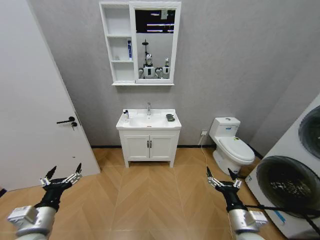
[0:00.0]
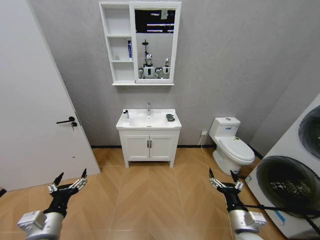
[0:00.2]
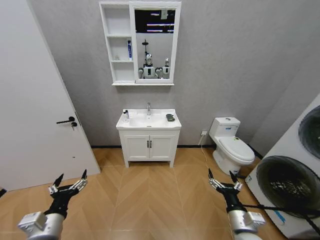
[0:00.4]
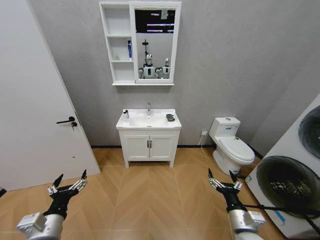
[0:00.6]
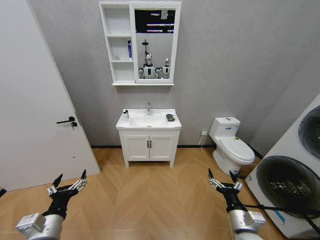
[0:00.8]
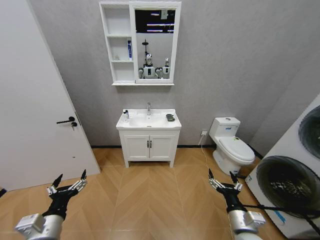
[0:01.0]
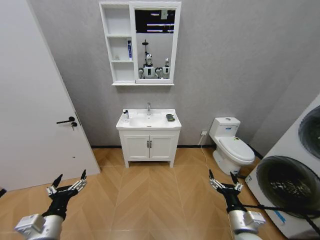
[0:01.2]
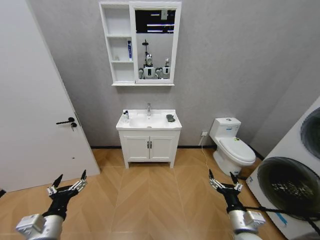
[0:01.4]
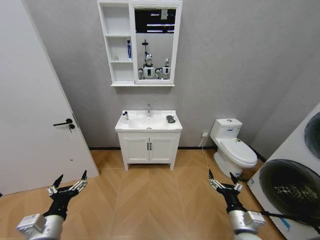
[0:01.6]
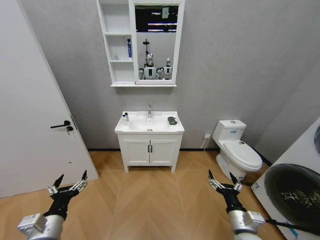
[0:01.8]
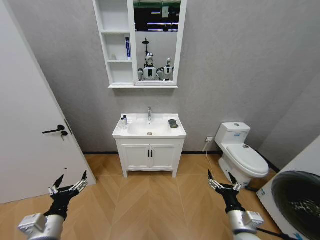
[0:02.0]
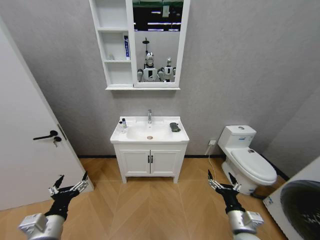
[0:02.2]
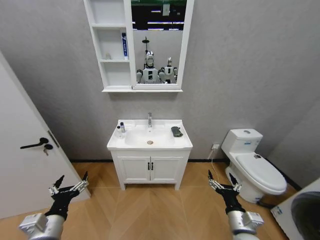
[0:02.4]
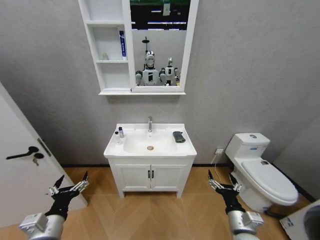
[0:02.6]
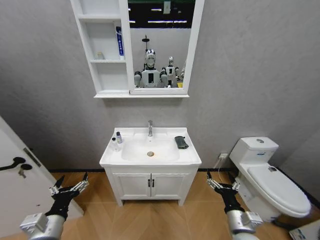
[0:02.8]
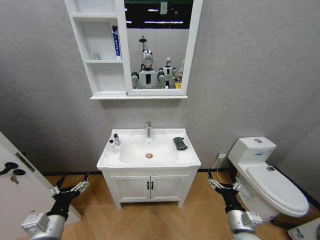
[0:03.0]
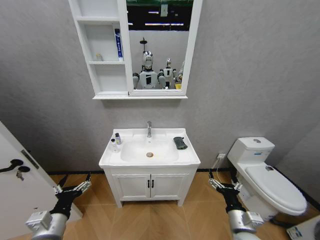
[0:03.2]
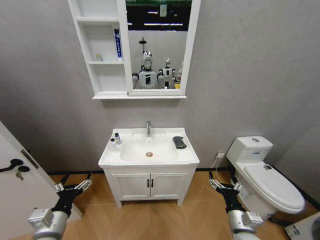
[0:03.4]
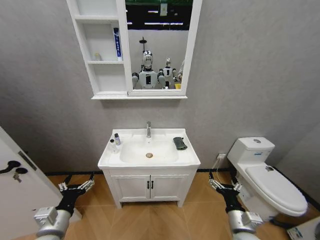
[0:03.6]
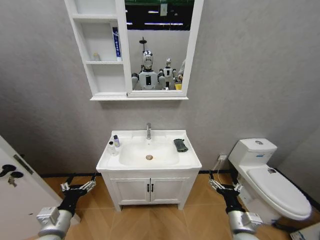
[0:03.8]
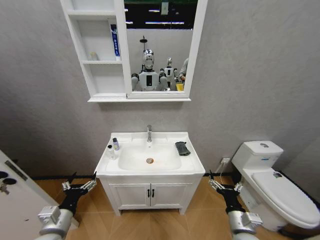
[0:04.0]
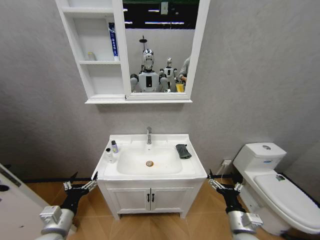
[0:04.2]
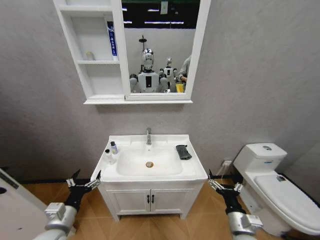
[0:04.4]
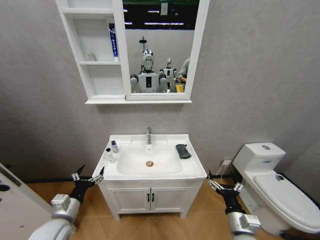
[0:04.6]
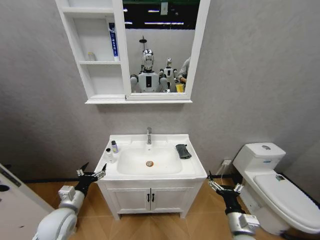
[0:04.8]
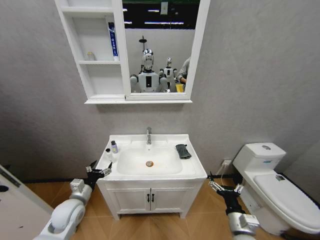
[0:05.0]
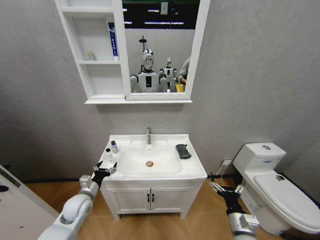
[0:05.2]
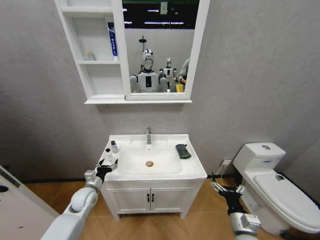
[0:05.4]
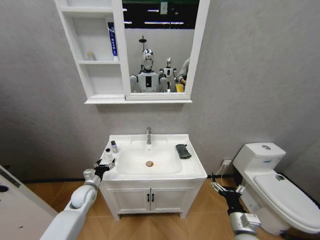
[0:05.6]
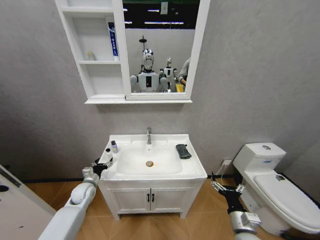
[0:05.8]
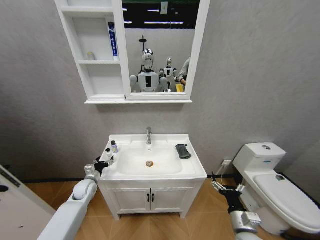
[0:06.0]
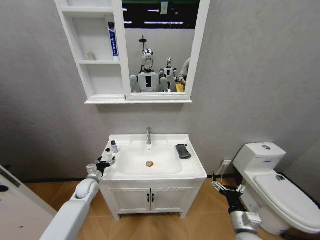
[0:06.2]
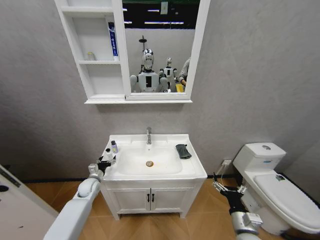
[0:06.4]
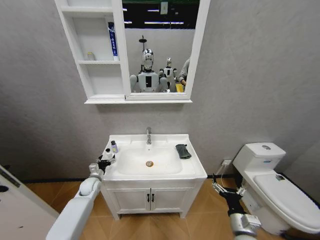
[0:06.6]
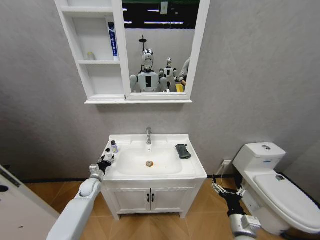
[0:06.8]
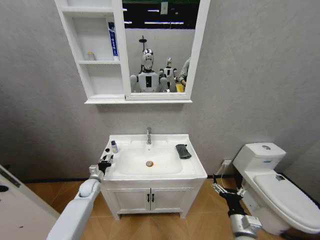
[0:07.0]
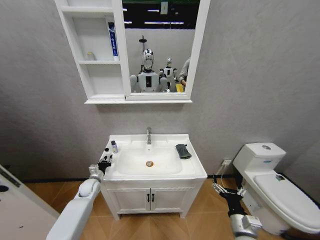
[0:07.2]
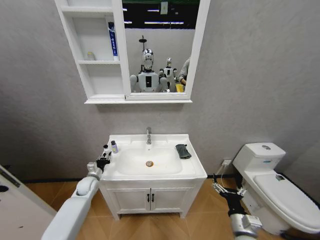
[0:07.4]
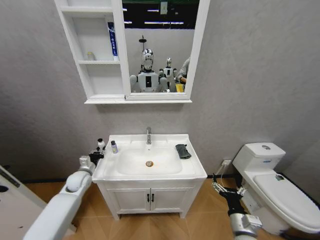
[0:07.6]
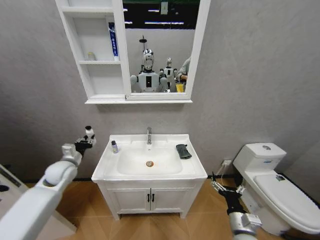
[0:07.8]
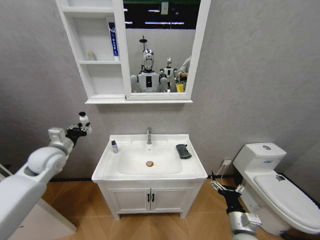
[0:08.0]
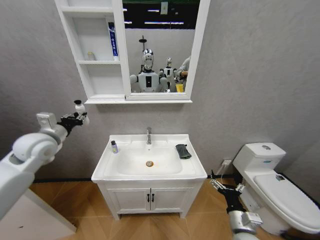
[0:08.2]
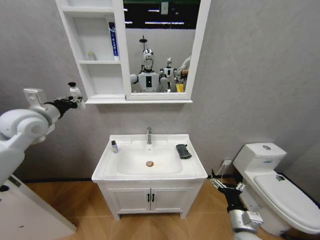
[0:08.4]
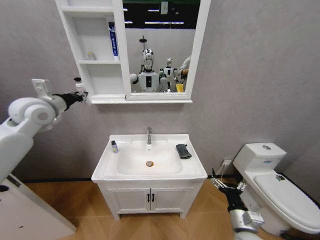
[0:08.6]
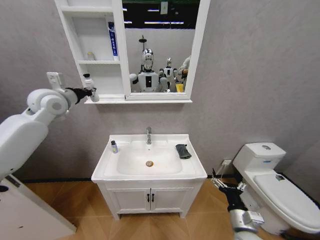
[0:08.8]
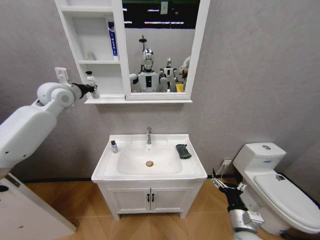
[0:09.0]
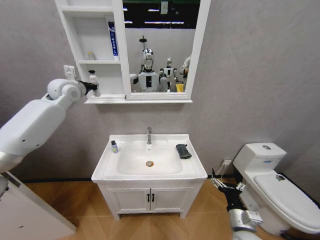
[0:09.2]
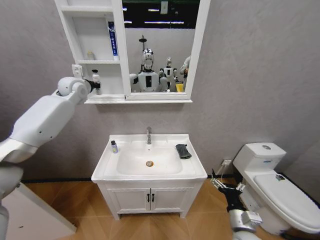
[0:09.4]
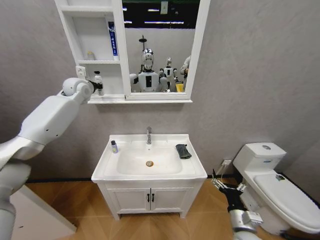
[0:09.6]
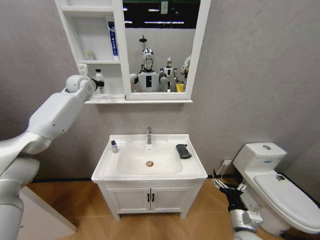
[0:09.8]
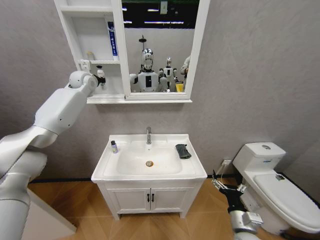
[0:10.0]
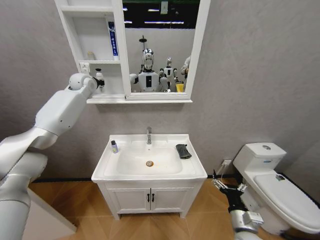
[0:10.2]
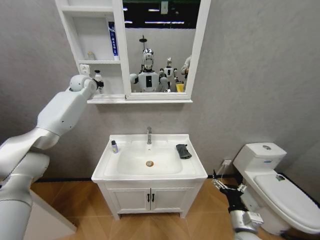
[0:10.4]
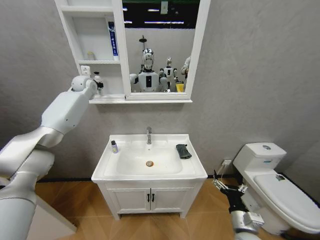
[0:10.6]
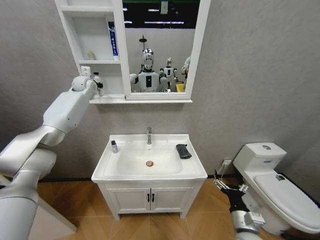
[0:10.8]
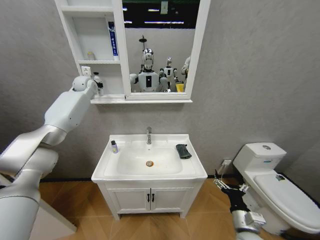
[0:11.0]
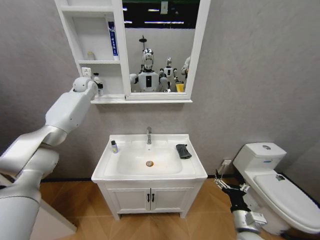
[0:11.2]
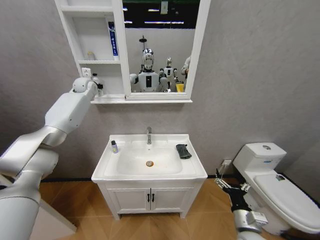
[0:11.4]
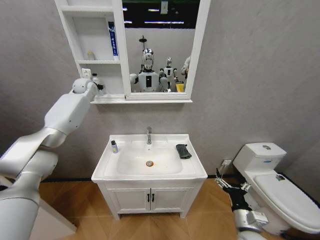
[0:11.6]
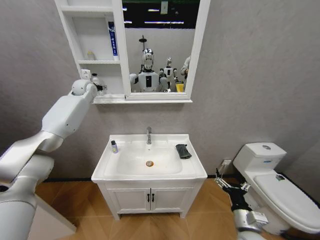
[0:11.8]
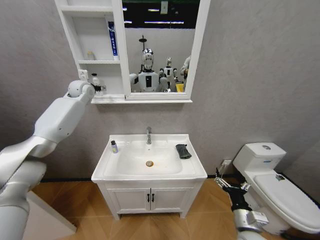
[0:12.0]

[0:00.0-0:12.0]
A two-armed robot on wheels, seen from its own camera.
Task of the whole recording: Move facial cleanser and shampoo from washbasin to cabinet, then wipe washbasin with towel.
0:04.4 to 0:06.0: The left gripper heads forward and downward, covering some 25 cm.
0:06.0 to 0:07.6: The left gripper shifts approximately 5 cm upward, and closes up.
0:07.6 to 0:09.0: The left gripper is displaced upward by roughly 35 cm.
0:09.0 to 0:10.4: The left gripper heads forward, covering about 15 cm.
0:10.4 to 0:12.0: The left gripper opens its fingers.

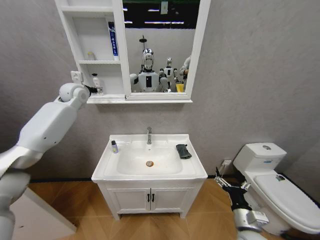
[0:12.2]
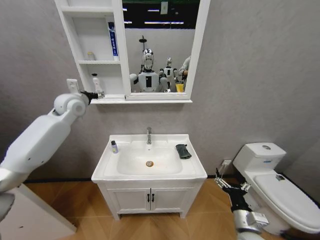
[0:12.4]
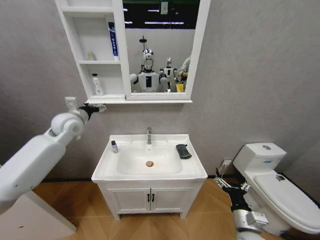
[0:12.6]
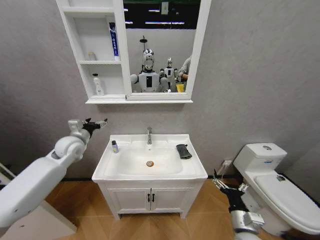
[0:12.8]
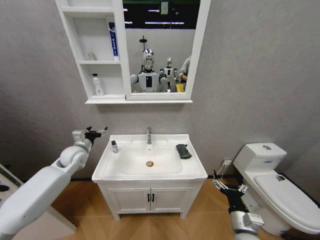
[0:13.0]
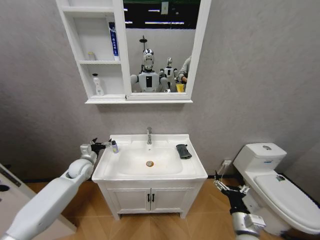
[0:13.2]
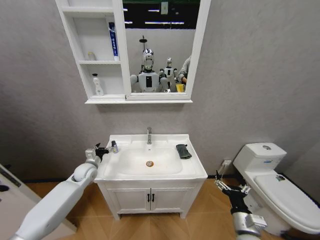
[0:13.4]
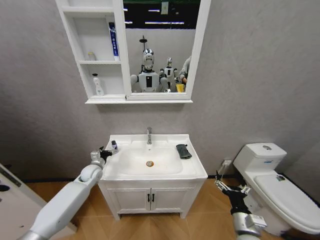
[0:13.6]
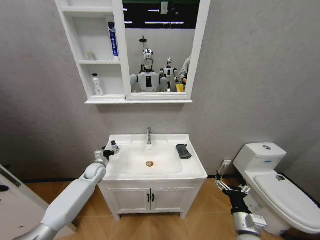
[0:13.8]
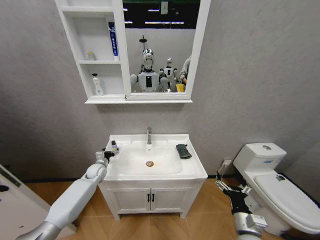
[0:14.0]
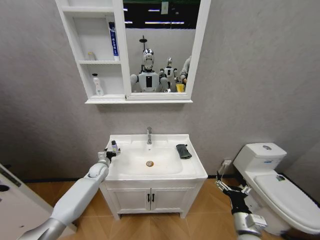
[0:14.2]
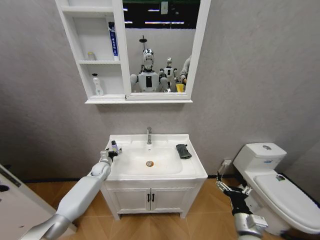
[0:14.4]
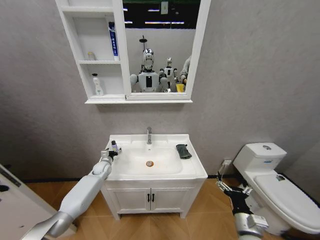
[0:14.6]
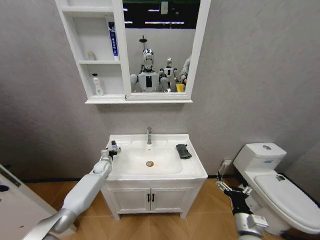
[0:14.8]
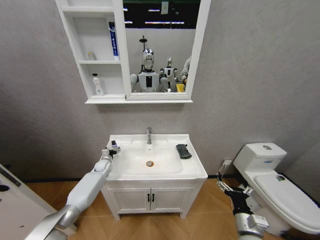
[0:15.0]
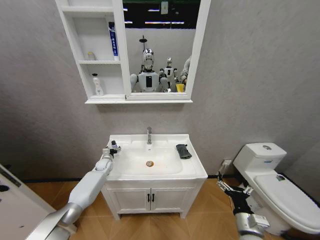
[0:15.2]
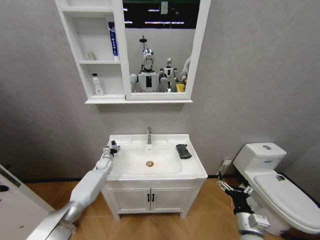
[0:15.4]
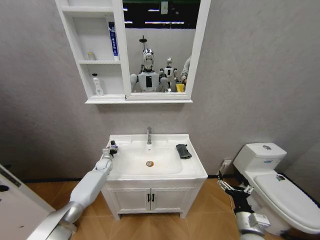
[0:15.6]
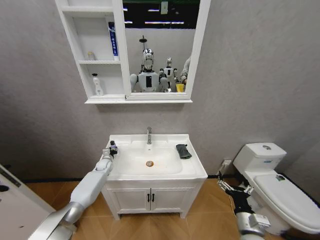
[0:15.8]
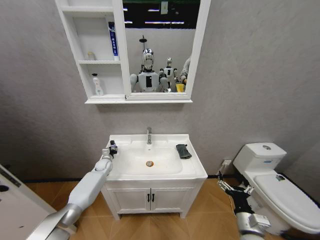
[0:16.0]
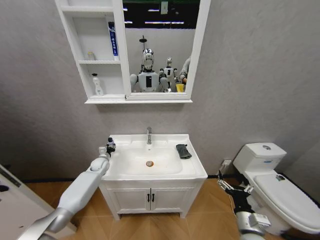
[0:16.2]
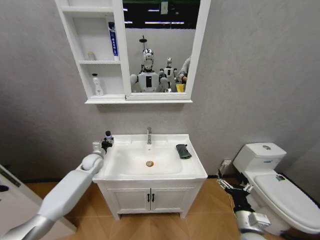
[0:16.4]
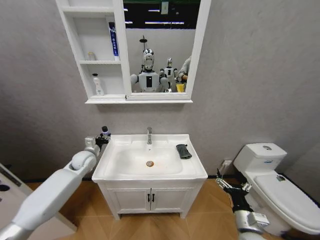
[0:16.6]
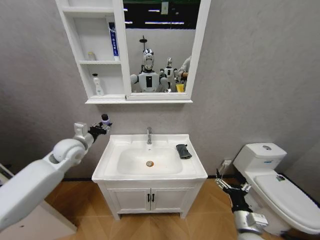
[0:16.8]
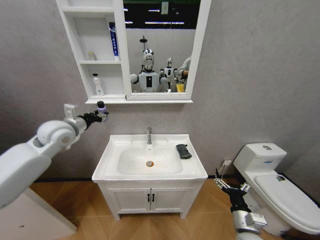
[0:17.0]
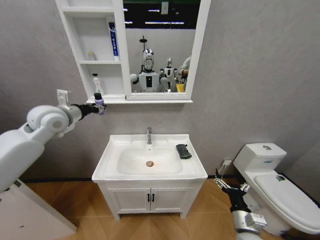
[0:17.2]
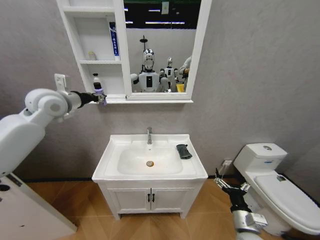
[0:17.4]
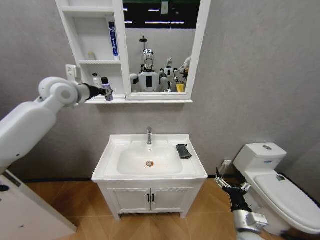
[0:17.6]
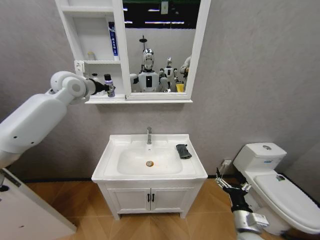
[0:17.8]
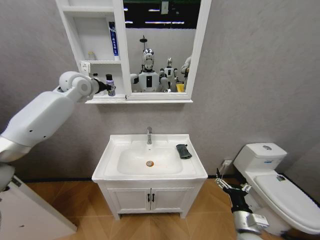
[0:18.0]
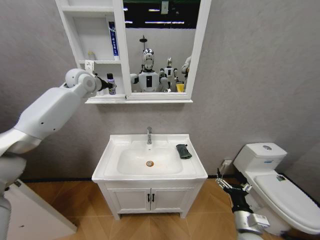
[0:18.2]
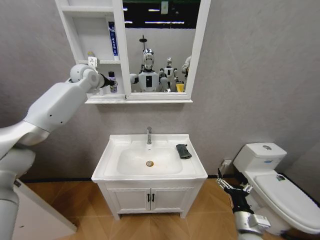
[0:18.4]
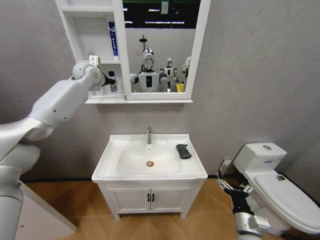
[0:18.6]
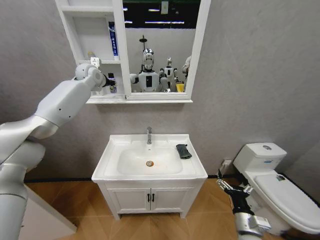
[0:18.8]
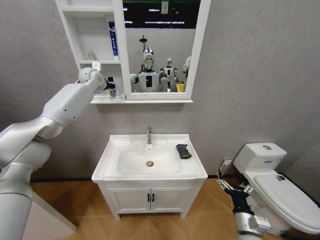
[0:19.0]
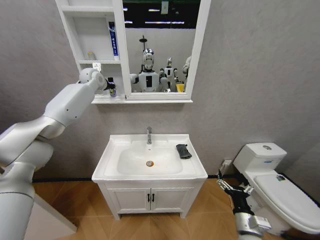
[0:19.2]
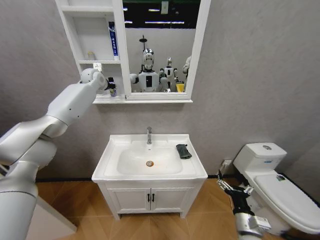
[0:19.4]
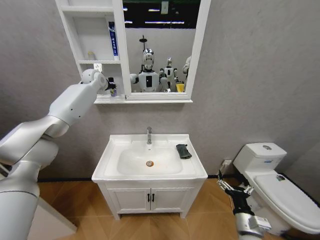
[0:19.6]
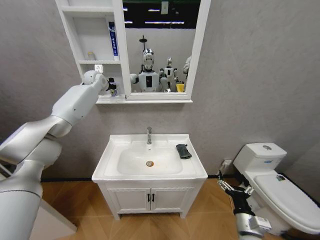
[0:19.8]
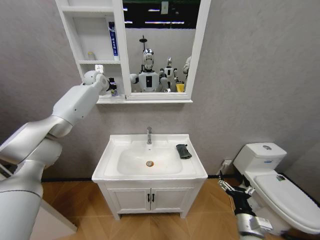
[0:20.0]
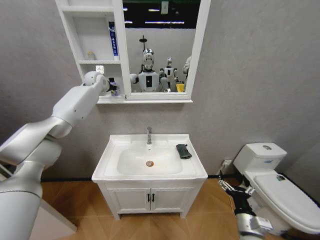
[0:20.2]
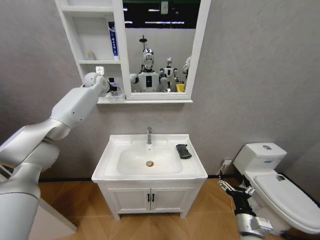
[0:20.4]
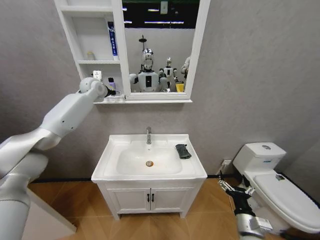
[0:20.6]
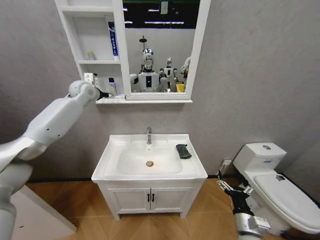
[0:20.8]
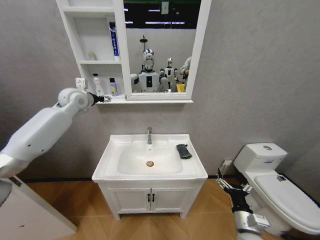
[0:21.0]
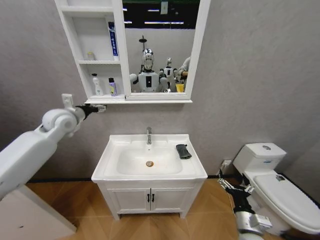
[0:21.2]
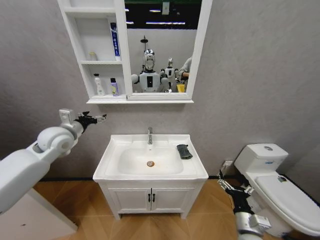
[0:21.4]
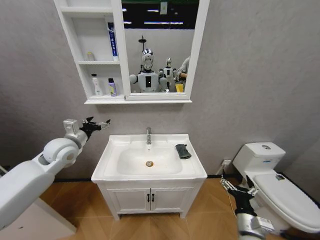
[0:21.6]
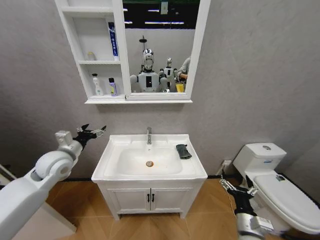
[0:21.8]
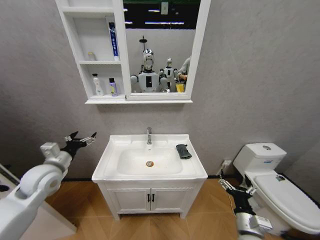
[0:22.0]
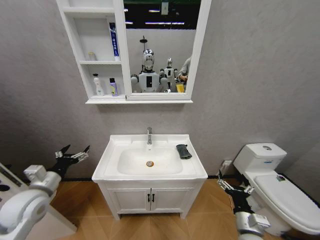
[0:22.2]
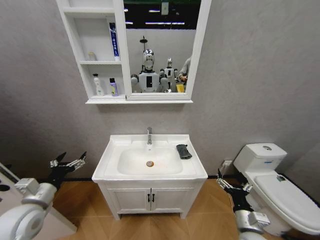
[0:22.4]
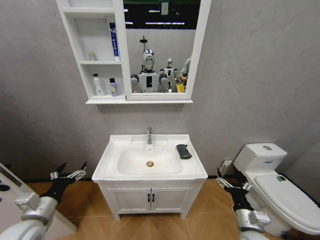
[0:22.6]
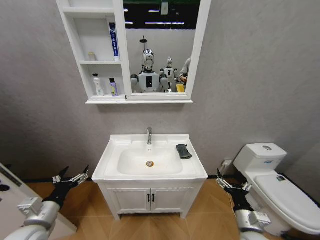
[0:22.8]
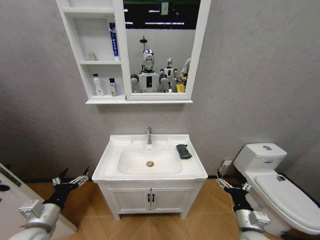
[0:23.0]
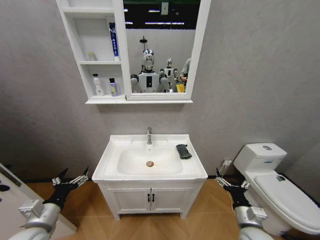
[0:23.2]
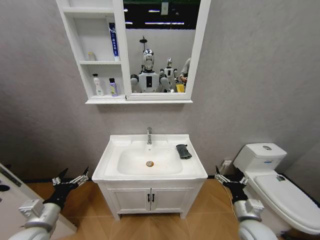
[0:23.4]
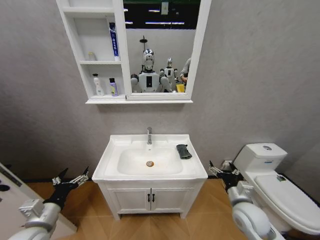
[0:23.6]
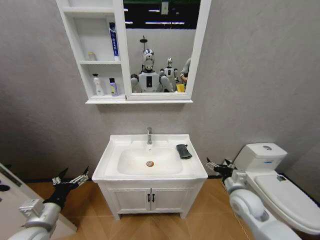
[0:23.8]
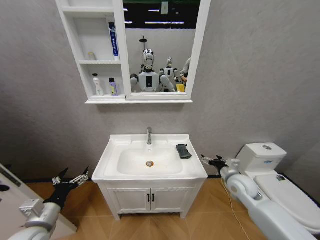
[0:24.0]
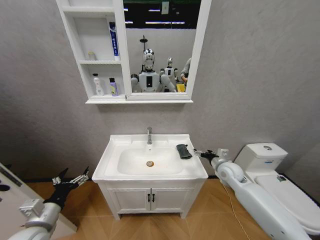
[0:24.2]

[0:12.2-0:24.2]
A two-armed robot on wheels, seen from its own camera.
Task of the whole recording: Move facial cleanser and shampoo from washbasin to cabinet, then wipe washbasin with towel.
0:12.2 to 0:13.8: The left gripper travels downward by about 40 cm.
0:13.8 to 0:15.2: The left gripper goes some 10 cm forward and downward.
0:15.2 to 0:16.6: The left gripper goes roughly 20 cm upward and backward, and closes up.
0:16.6 to 0:18.2: The left gripper moves upward and forward, some 35 cm.
0:18.2 to 0:19.8: The left gripper heads forward, covering about 10 cm.
0:19.8 to 0:21.2: The left gripper is displaced backward and downward by some 25 cm, and opens.
0:21.2 to 0:22.6: The left gripper travels backward and downward by about 35 cm.
0:22.6 to 0:24.2: The right gripper goes some 25 cm forward.
